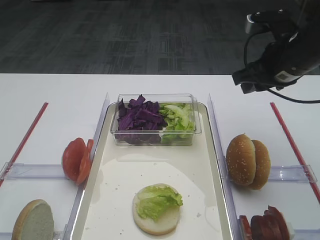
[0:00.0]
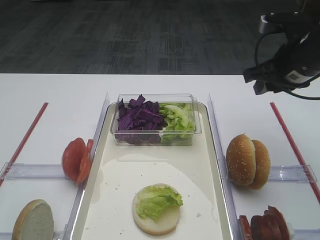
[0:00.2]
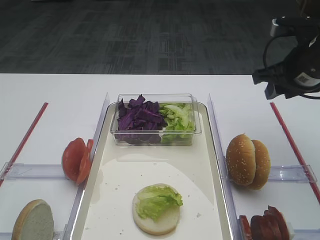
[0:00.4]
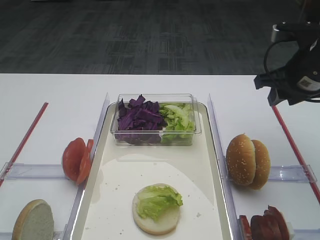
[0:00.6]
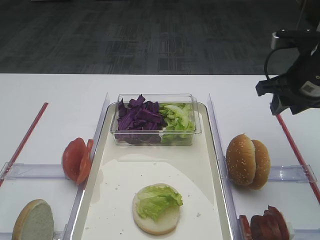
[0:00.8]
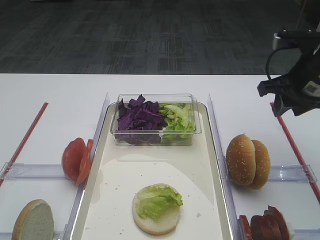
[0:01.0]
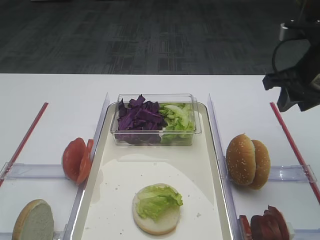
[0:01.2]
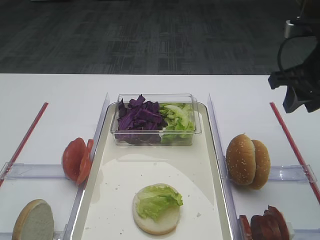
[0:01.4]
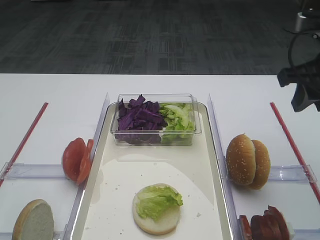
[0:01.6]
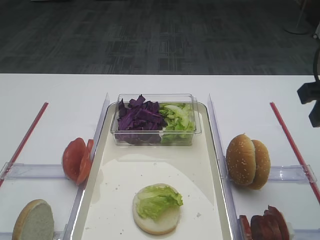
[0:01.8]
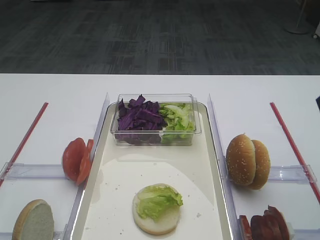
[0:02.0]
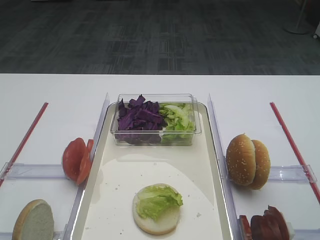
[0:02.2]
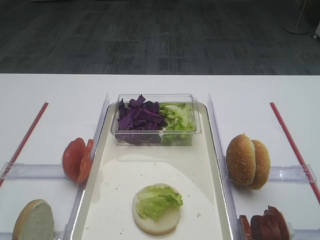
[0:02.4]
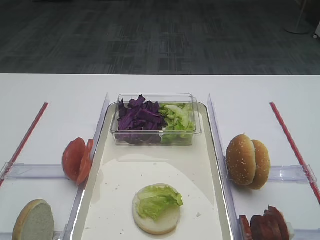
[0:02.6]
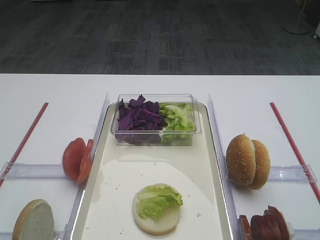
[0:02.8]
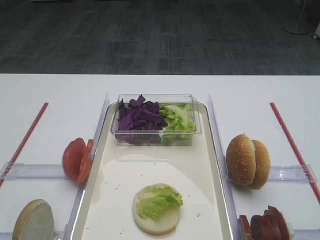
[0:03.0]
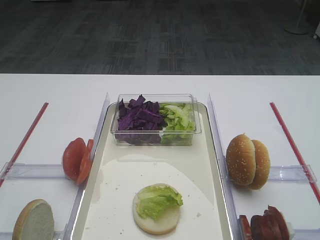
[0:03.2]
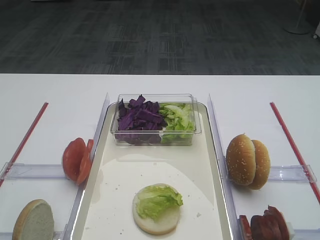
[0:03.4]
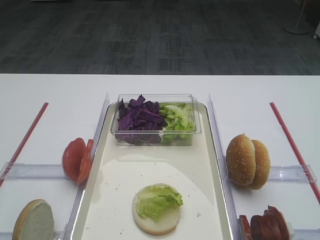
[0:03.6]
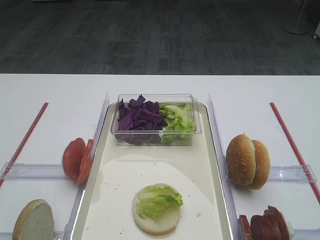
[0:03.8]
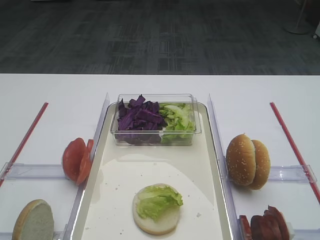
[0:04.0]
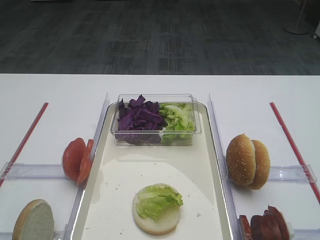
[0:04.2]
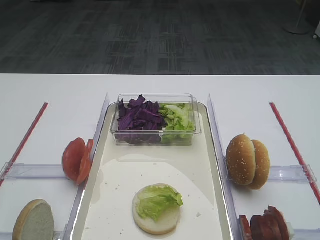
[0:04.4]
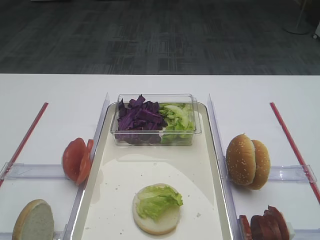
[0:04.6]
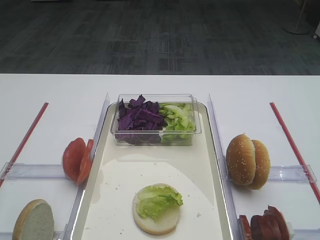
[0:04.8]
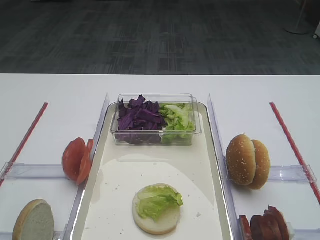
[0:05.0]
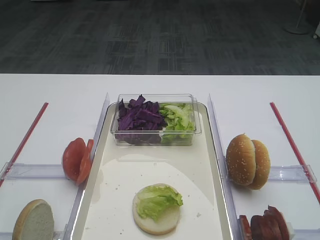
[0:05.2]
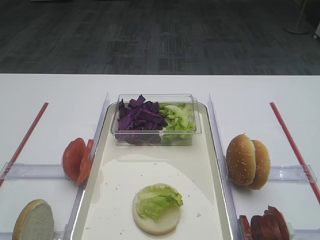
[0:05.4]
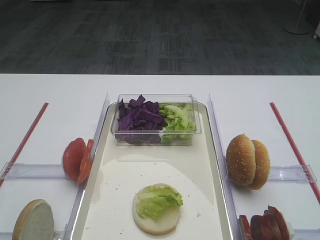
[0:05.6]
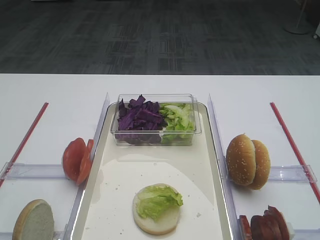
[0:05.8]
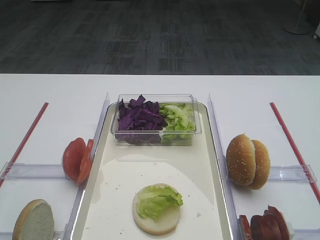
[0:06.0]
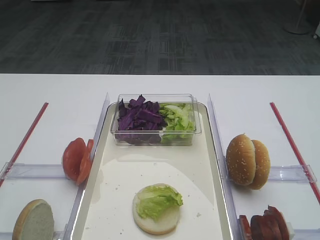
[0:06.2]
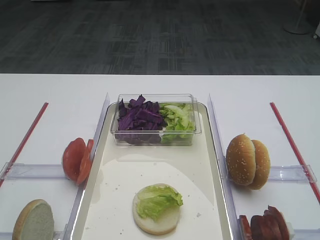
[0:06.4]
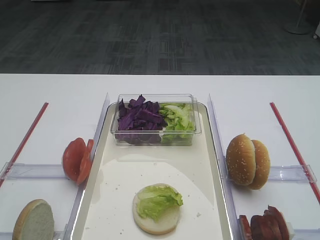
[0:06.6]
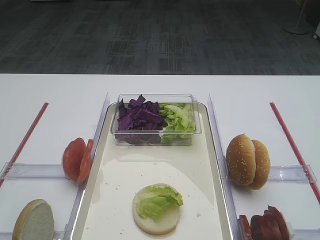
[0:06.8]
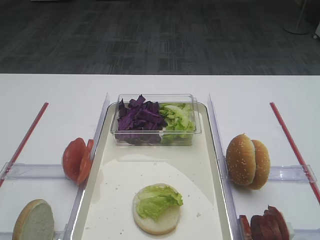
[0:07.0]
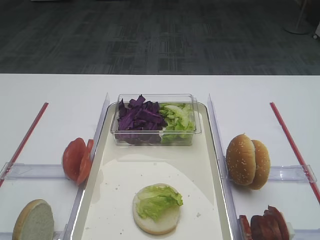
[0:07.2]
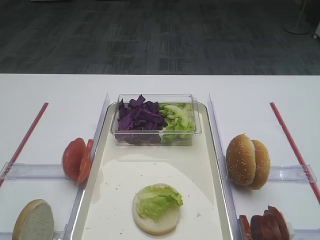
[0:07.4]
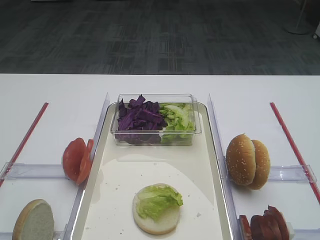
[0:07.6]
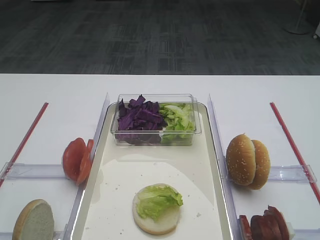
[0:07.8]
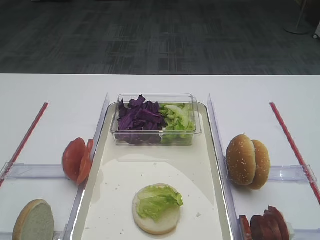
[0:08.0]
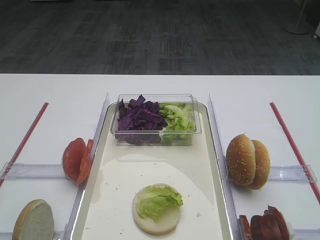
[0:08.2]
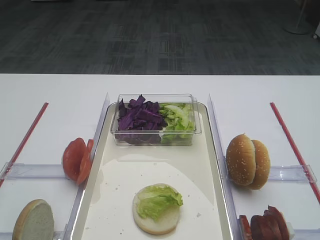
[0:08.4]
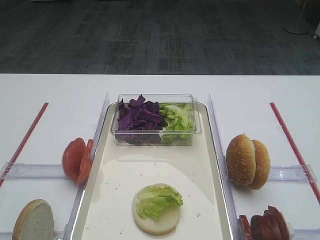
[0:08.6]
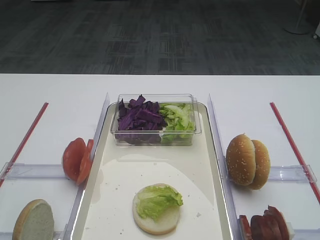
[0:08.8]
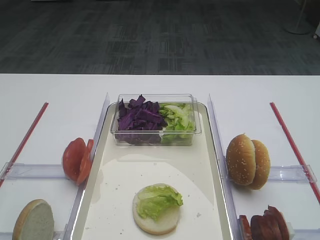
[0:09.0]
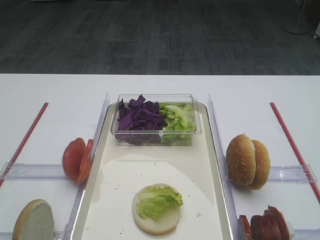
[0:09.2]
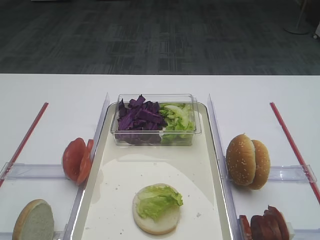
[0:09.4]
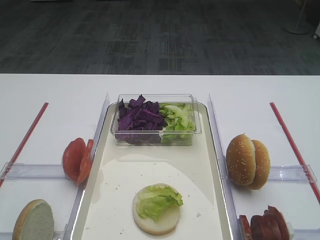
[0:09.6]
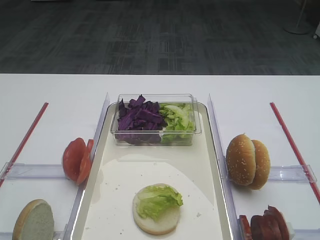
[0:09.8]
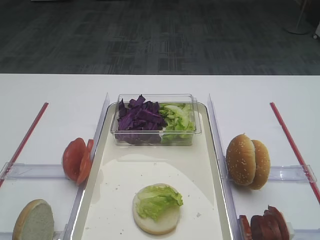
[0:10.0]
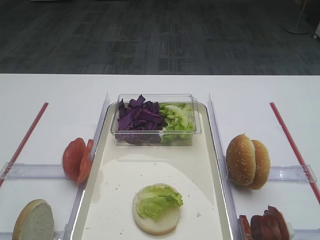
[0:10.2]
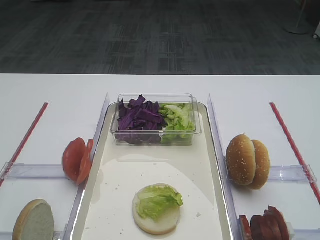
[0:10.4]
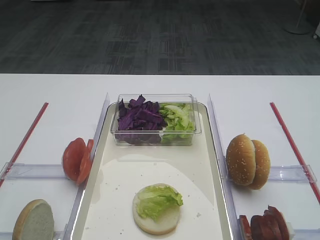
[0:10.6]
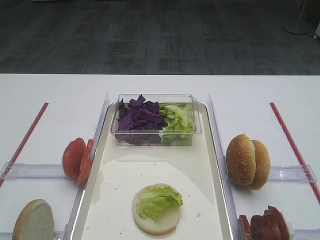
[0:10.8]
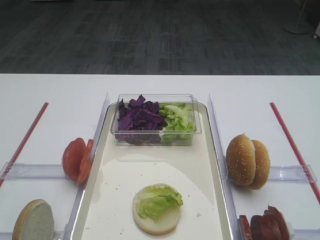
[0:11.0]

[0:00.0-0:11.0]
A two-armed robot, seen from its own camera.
0:00.0 to 0:01.6: The right gripper heads backward, covering approximately 5 cm.
0:01.6 to 0:03.2: The right gripper goes roughly 20 cm backward.
0:06.2 to 0:11.0: The two grippers keep their place.

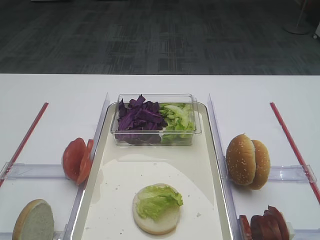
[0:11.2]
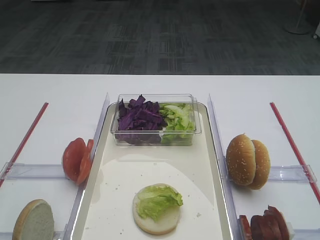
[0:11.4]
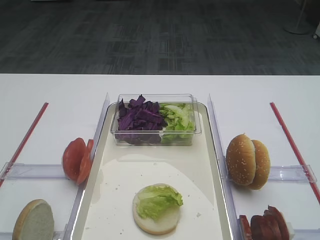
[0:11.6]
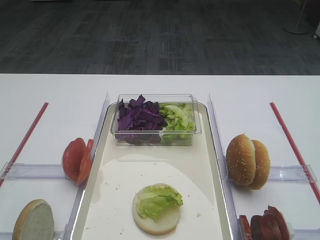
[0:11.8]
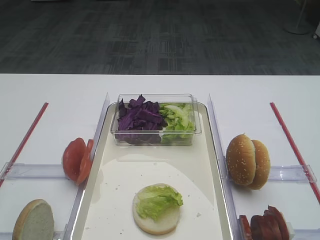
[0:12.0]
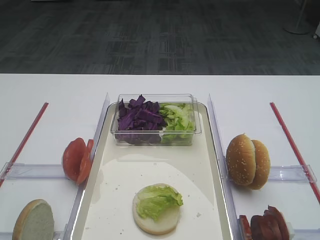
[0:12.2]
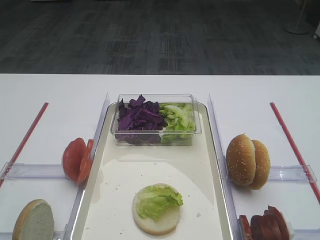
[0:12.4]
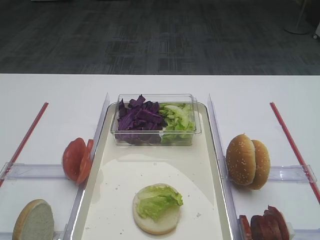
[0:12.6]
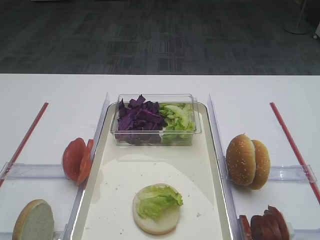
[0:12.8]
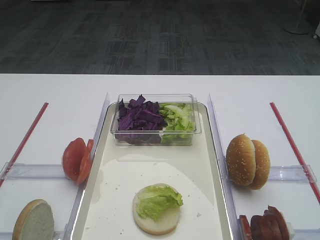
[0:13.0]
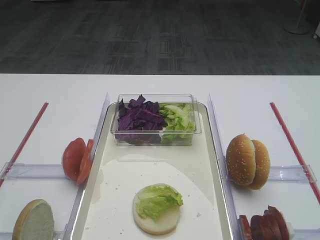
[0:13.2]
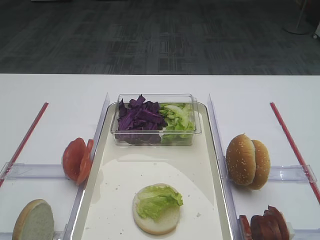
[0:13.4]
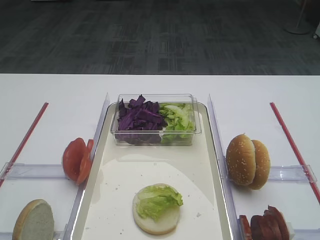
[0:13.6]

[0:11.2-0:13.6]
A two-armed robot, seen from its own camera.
0:11.2 to 0:13.6: Both grippers stay put.

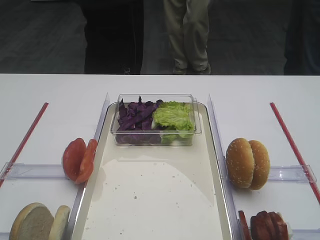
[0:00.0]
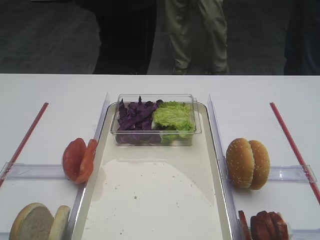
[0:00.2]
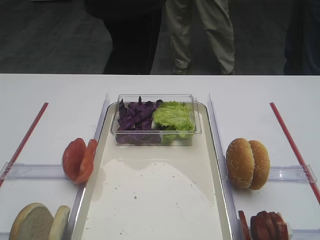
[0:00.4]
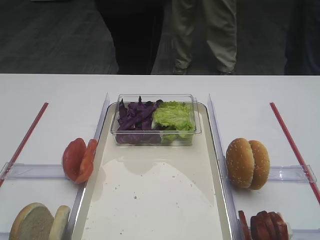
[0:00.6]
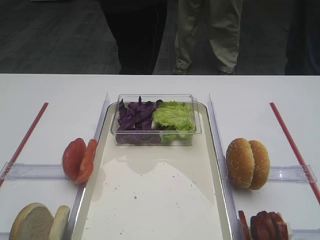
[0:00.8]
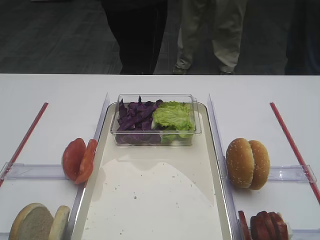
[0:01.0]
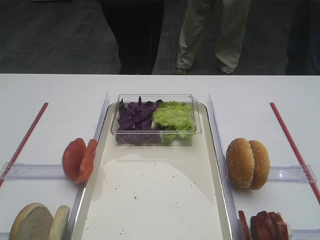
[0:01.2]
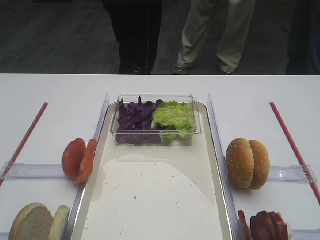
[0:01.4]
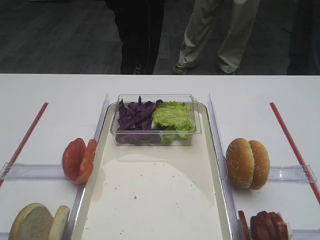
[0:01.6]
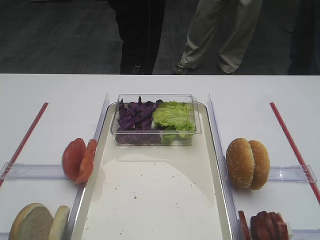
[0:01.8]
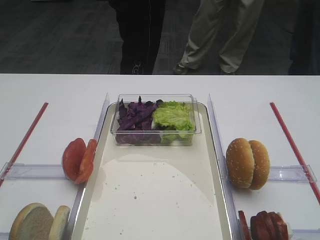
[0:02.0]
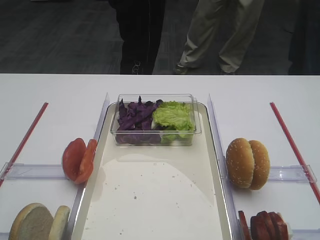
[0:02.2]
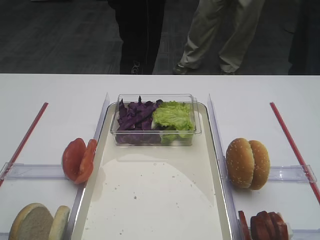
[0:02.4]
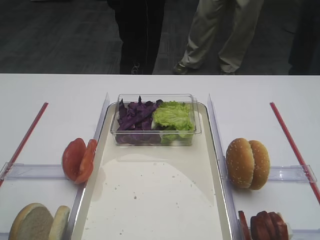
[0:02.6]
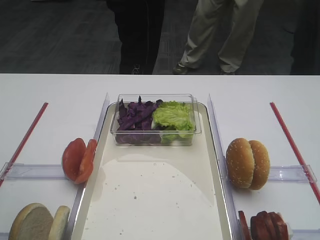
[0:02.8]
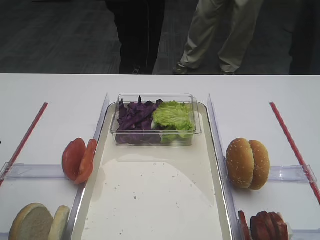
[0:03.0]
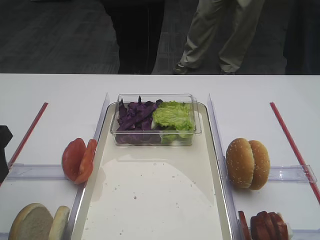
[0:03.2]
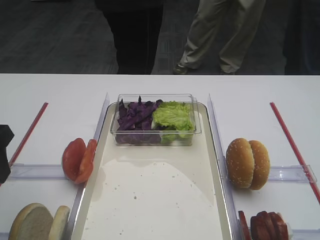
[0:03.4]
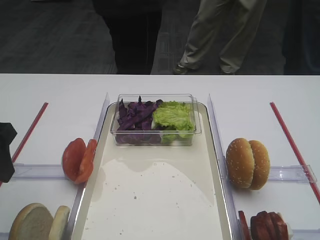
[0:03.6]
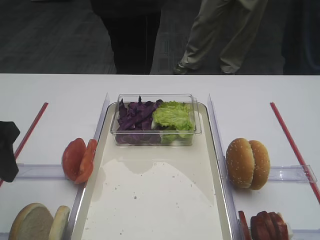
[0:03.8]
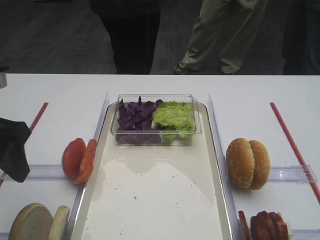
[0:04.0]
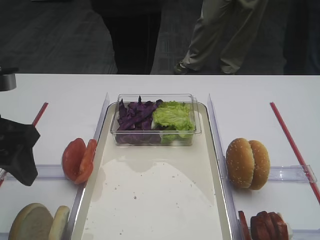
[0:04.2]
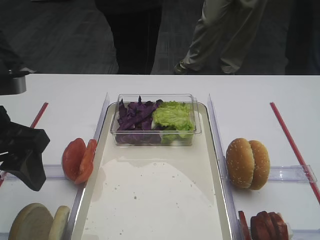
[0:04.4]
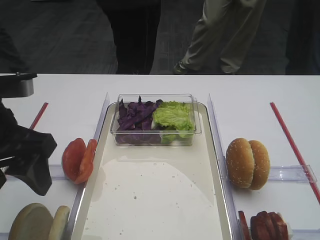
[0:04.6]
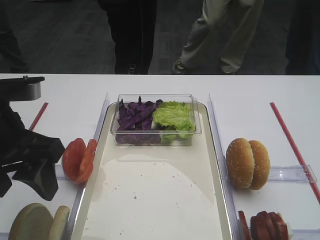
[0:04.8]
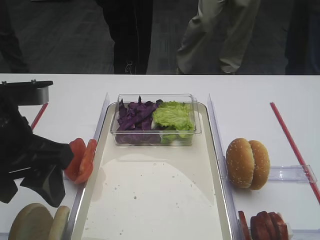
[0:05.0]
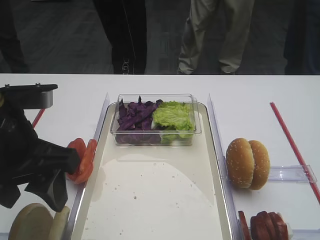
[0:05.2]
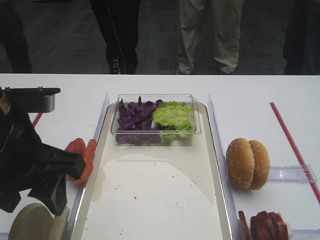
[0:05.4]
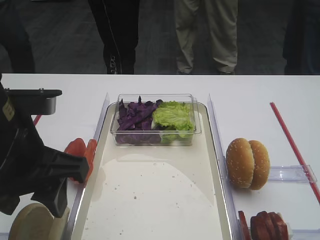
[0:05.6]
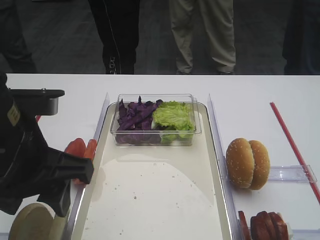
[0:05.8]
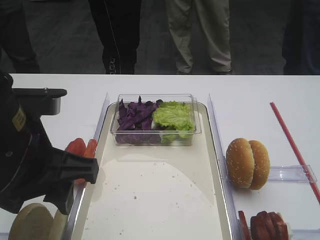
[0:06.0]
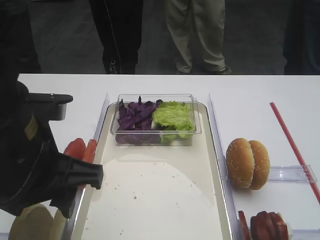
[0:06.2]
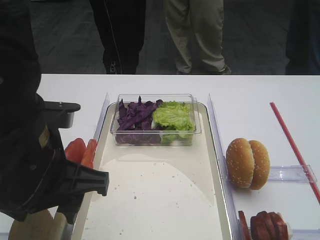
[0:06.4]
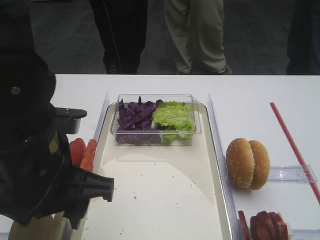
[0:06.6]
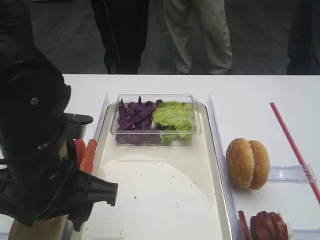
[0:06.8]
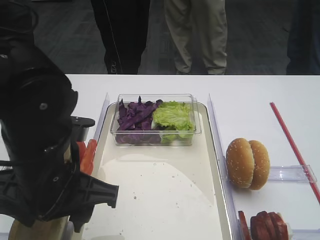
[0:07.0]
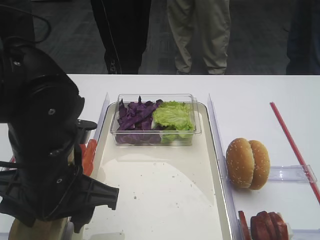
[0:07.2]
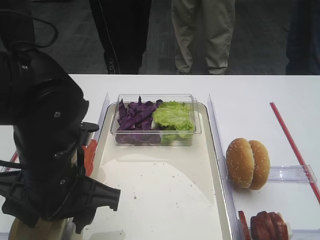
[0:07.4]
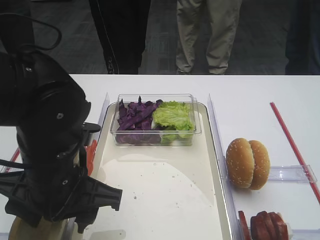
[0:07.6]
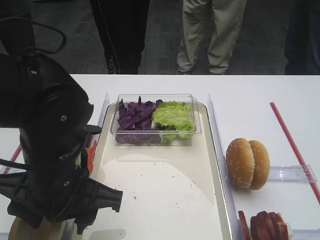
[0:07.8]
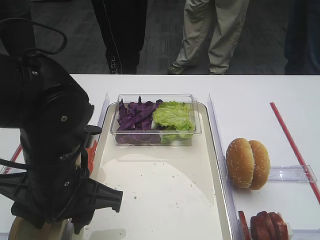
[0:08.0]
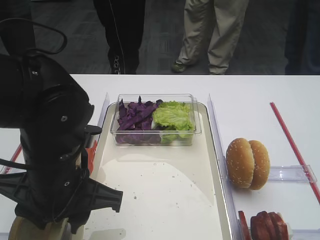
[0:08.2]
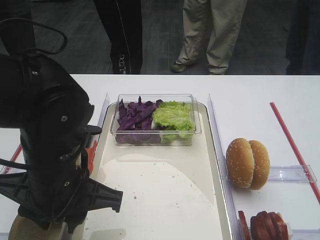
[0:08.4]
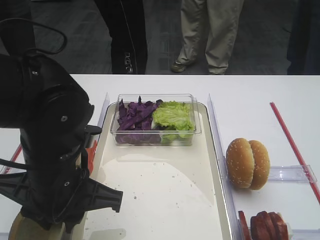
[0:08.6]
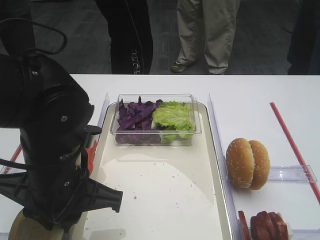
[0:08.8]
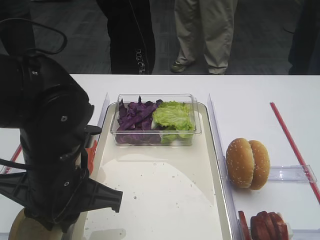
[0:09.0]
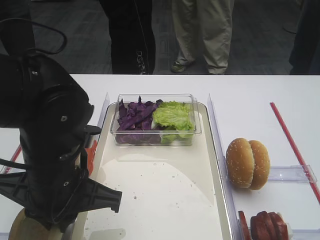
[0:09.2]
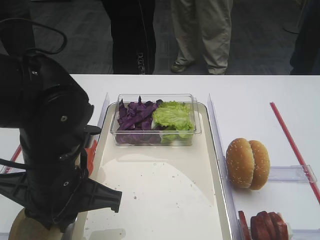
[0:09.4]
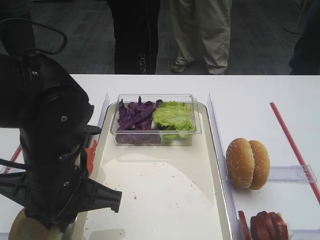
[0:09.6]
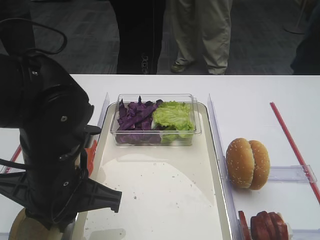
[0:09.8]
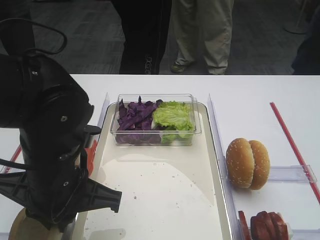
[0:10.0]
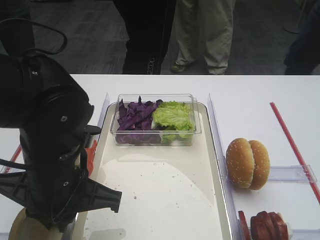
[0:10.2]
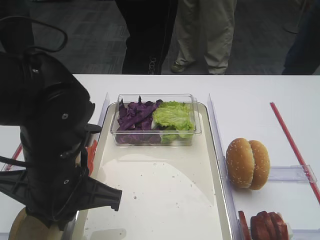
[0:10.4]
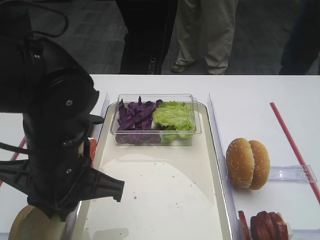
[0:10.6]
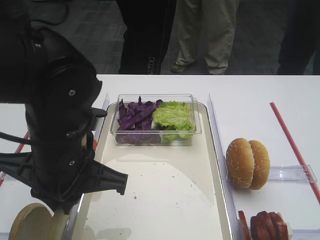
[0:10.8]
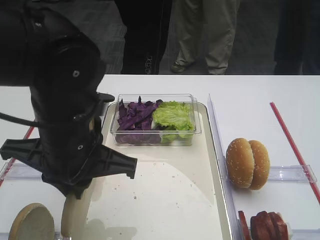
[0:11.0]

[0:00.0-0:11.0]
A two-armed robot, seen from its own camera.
Step, 0:00.0 to 0:10.8: Pick up the bread slice with the left gripper.
0:01.6 to 0:03.2: The left gripper shifts roughly 20 cm forward.
0:03.2 to 0:04.8: The left gripper is displaced to the right by roughly 5 cm.
0:04.8 to 0:06.2: The left gripper goes some 5 cm to the right.
0:06.2 to 0:07.8: The left gripper goes approximately 5 cm downward.
0:07.8 to 0:09.4: The left gripper closes up.
